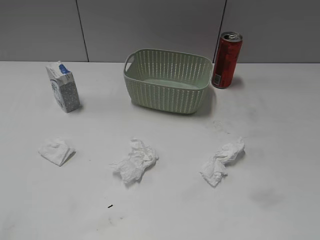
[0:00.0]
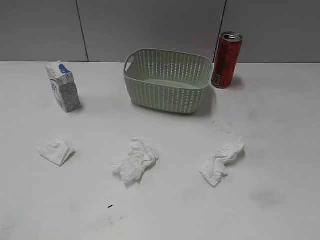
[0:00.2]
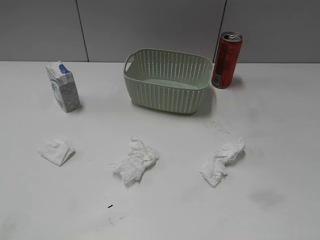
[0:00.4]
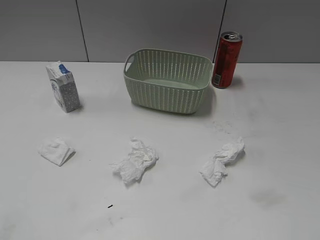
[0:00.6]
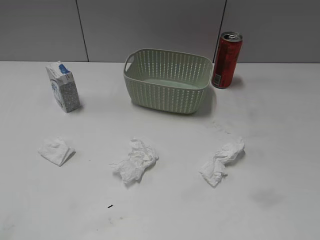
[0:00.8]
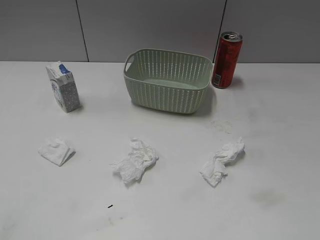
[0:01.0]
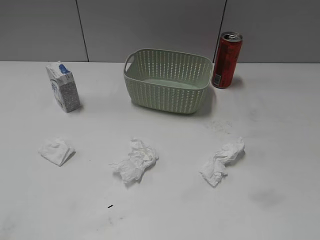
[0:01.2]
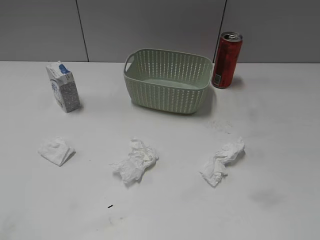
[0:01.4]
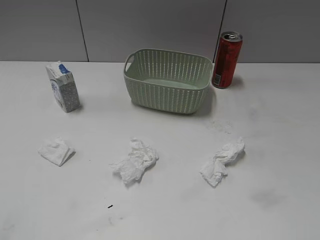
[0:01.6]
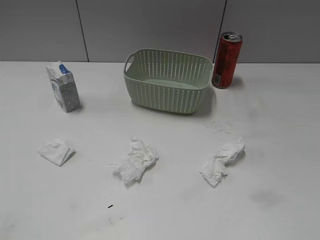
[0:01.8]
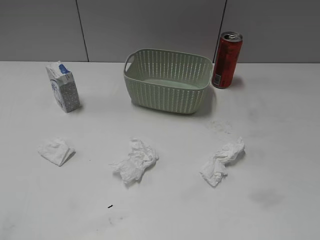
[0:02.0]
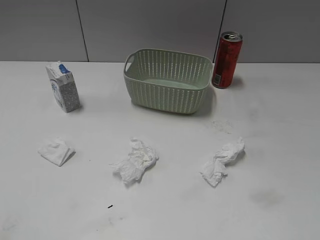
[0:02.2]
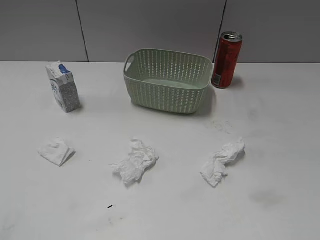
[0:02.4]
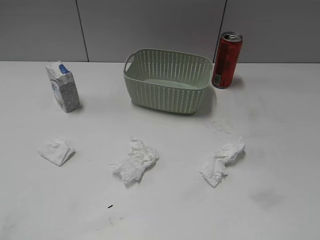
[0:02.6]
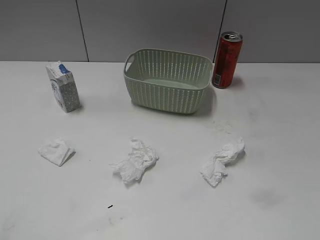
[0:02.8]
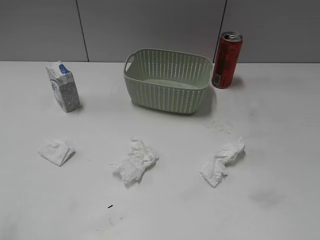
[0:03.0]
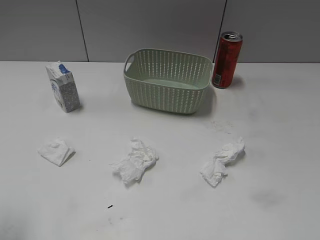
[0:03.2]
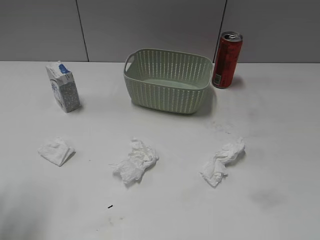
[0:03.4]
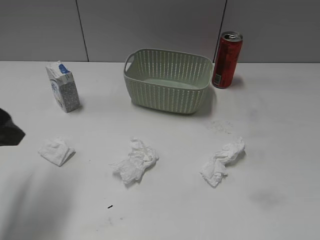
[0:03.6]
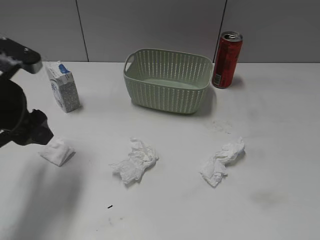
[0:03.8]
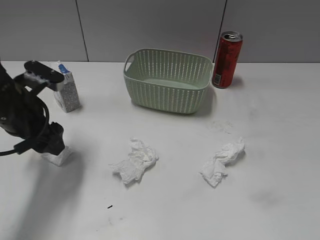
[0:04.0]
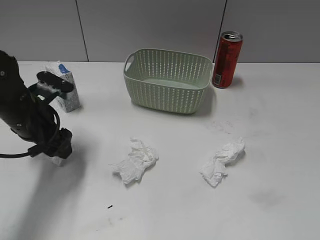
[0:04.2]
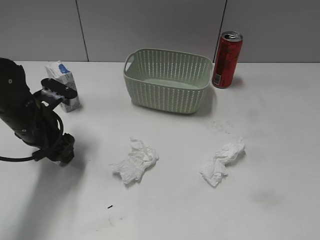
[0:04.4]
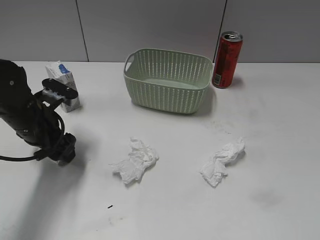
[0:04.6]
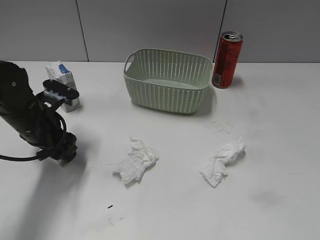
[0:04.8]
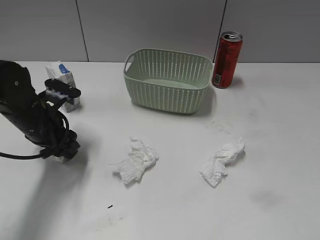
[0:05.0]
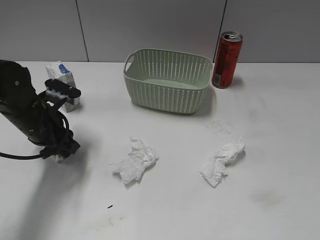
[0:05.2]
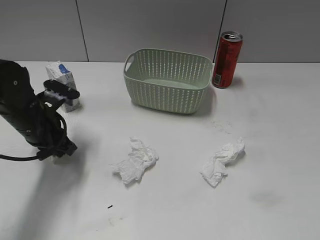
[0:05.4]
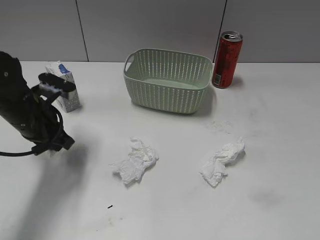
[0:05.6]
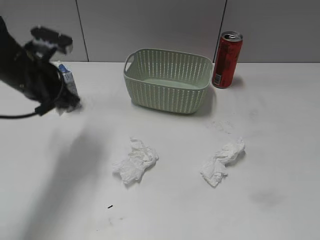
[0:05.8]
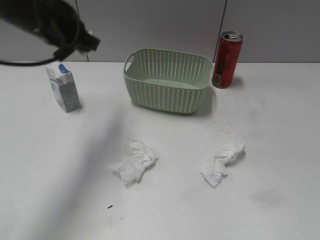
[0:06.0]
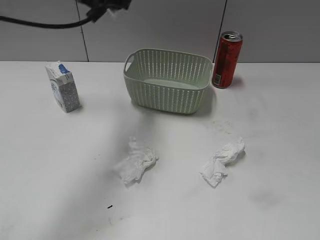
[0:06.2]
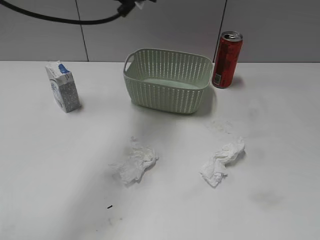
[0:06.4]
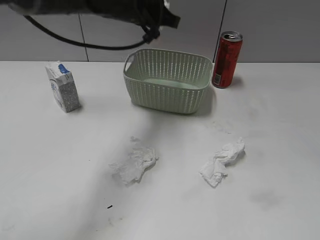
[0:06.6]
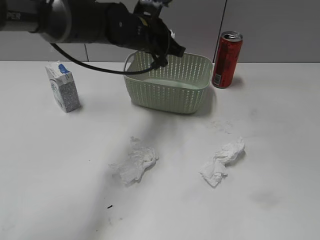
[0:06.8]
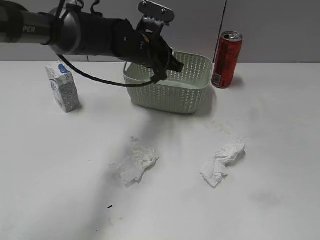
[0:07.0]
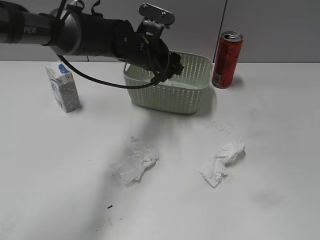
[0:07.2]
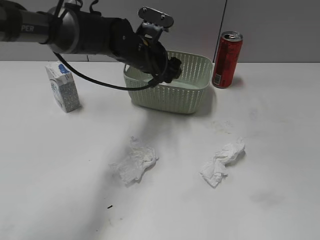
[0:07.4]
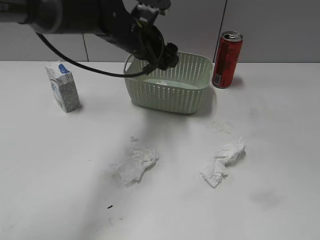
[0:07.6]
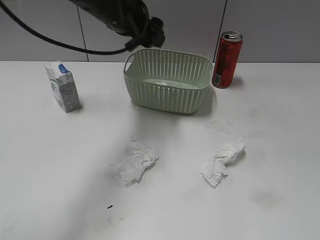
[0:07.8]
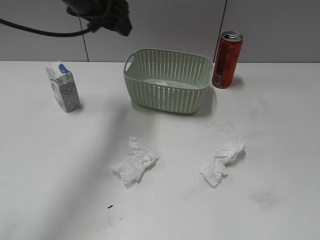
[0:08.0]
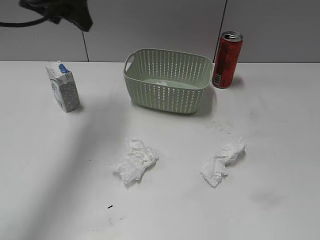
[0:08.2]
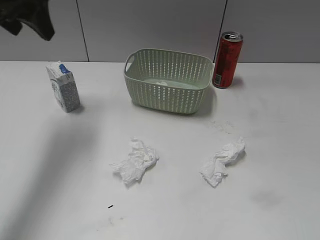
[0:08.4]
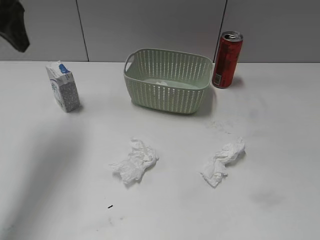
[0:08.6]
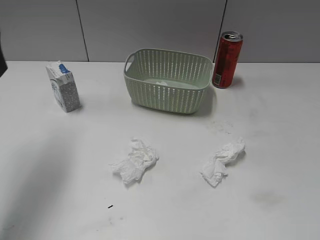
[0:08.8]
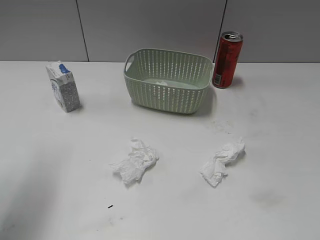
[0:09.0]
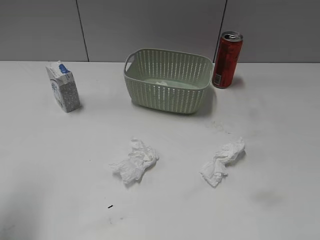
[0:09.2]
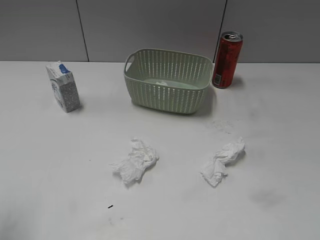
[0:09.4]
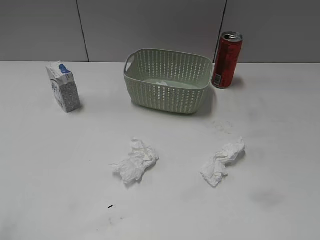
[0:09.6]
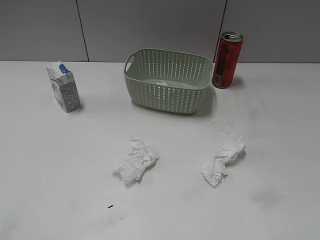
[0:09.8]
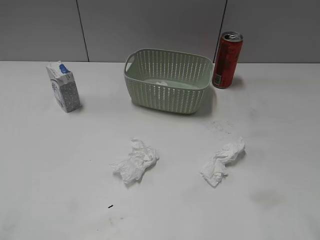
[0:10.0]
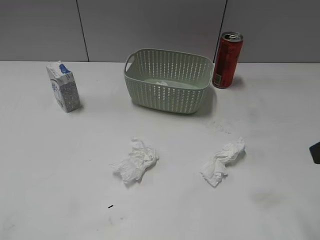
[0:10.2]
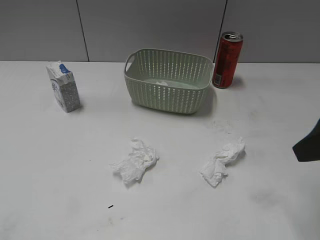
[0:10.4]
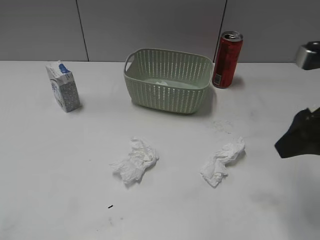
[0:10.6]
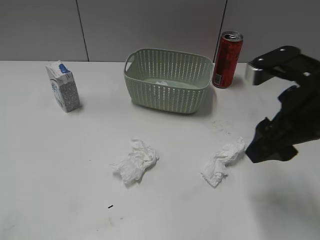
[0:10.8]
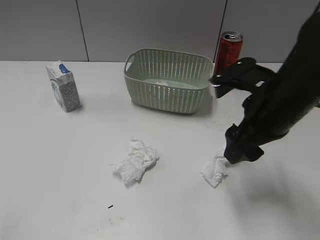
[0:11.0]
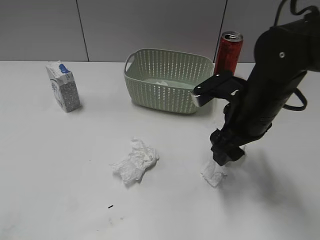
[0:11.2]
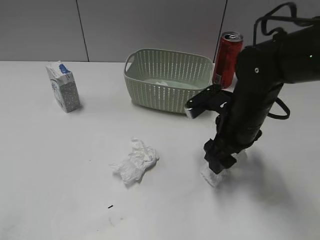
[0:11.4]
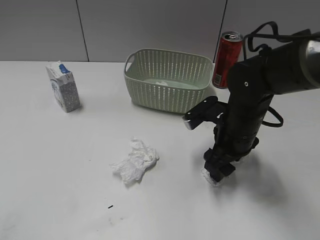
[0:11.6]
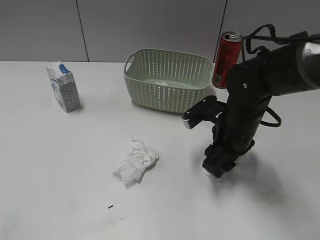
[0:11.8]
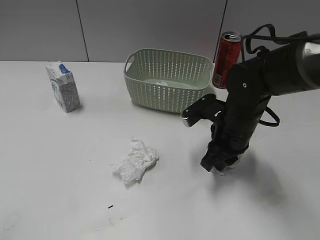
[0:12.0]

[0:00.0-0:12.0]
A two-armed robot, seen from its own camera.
Step, 0:03.2 to 0:05.4: Grasp the waste paper with left gripper.
Step, 0:05.6 to 0:07.2: Place the waste paper in the basket with left gripper.
0:03.0 to 0:04.4: The left gripper goes approximately 30 cm forward, downward and to the right.
0:04.4 to 0:06.0: The left gripper is displaced upward by roughly 15 cm, and closes.
0:06.0 to 0:07.6: The left gripper moves up and down over some 15 cm, changing direction 2 times, and opens up.
0:07.6 to 0:09.0: The left gripper travels to the left and backward by approximately 30 cm.
0:09.0 to 0:10.4: The left gripper is displaced backward by some 25 cm. The right gripper is displaced forward by some 20 cm.
0:10.4 to 0:12.0: The right gripper shifts about 20 cm downward, to the left and forward, and closes.

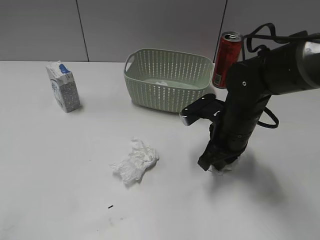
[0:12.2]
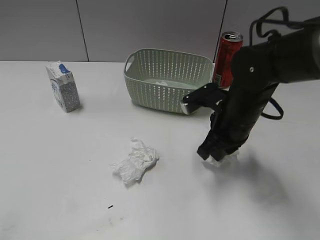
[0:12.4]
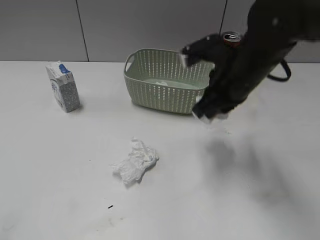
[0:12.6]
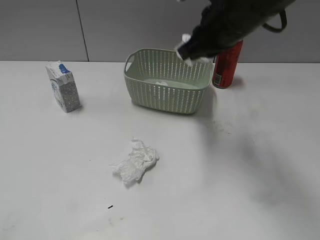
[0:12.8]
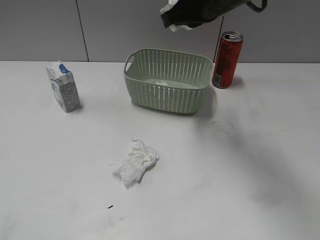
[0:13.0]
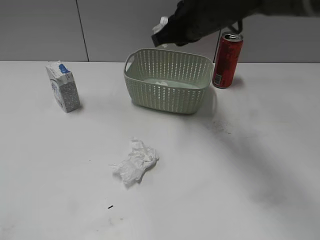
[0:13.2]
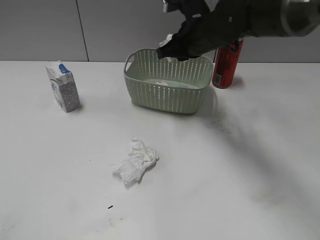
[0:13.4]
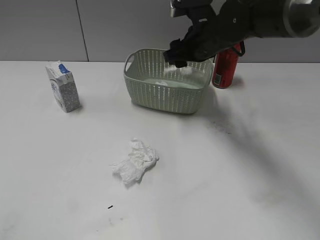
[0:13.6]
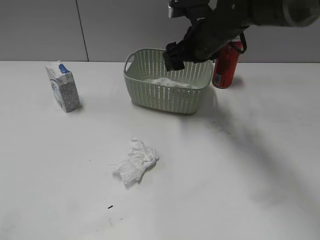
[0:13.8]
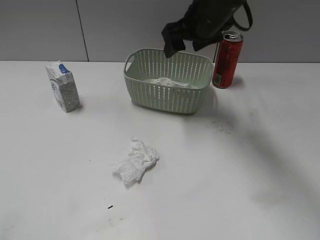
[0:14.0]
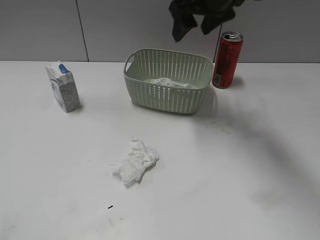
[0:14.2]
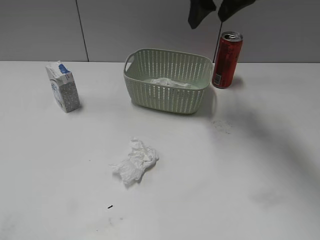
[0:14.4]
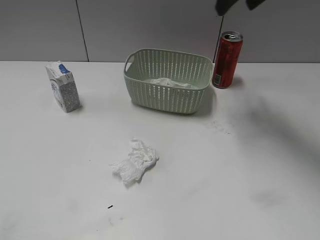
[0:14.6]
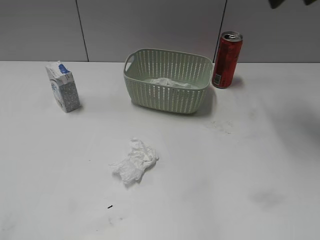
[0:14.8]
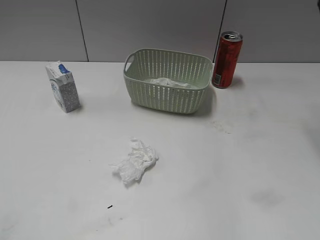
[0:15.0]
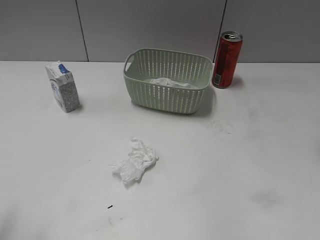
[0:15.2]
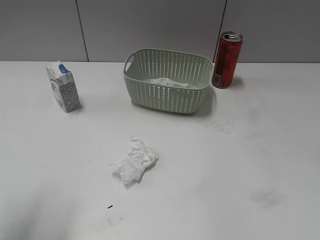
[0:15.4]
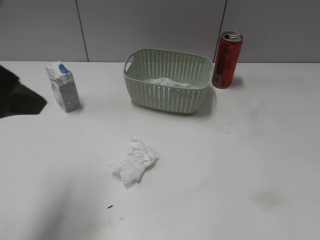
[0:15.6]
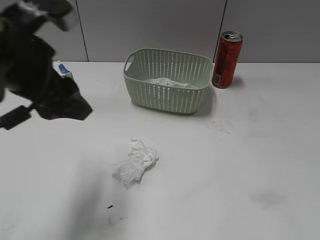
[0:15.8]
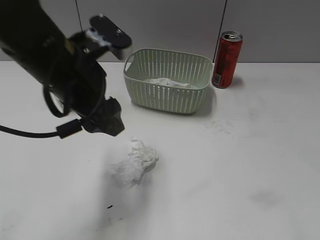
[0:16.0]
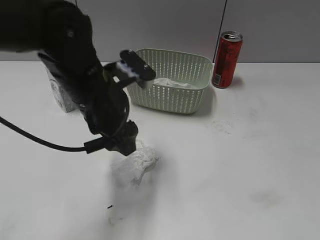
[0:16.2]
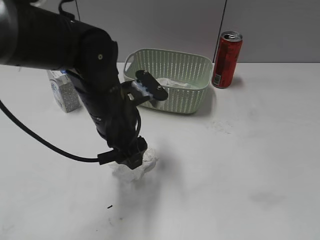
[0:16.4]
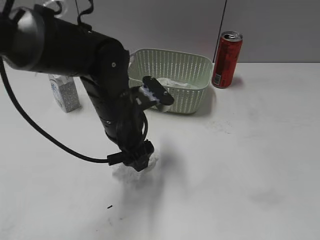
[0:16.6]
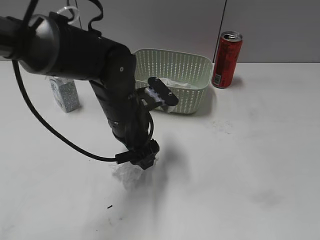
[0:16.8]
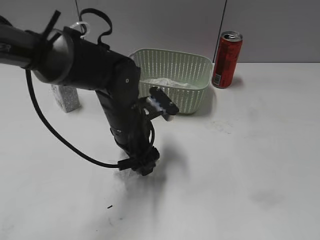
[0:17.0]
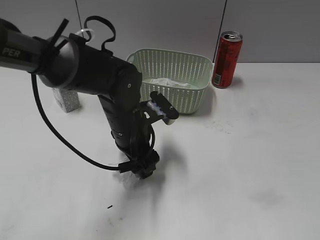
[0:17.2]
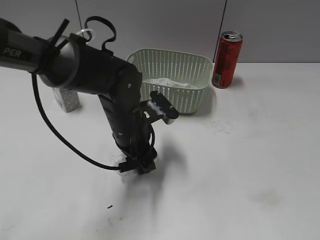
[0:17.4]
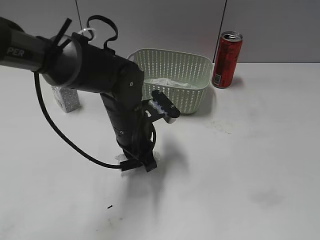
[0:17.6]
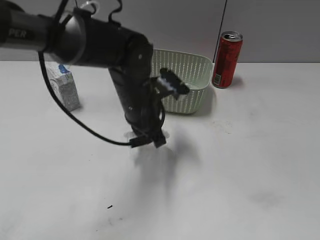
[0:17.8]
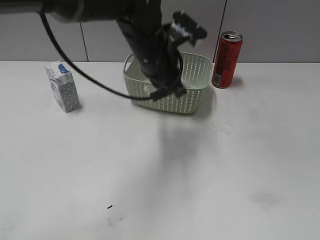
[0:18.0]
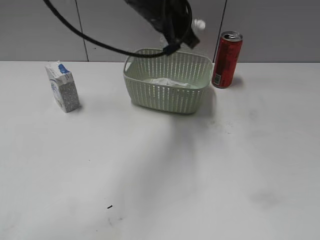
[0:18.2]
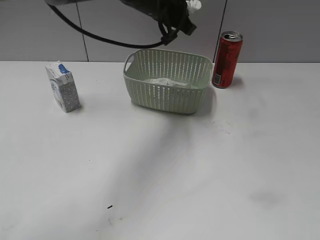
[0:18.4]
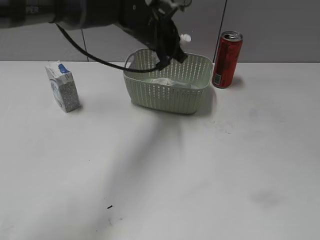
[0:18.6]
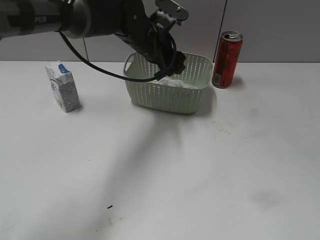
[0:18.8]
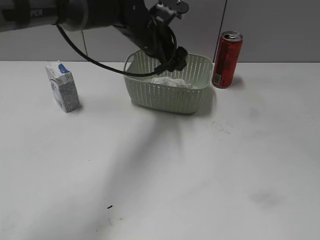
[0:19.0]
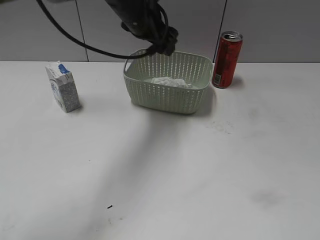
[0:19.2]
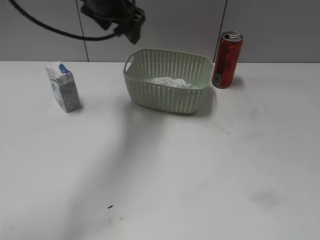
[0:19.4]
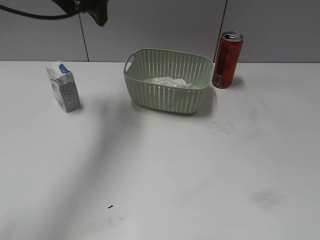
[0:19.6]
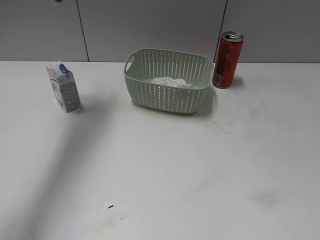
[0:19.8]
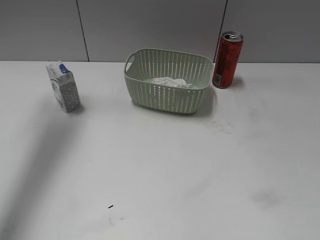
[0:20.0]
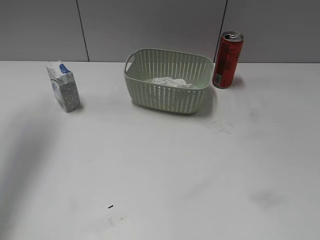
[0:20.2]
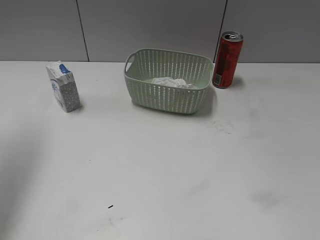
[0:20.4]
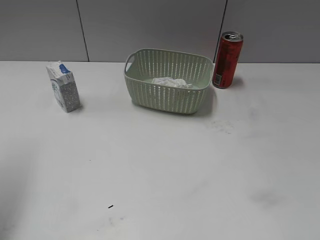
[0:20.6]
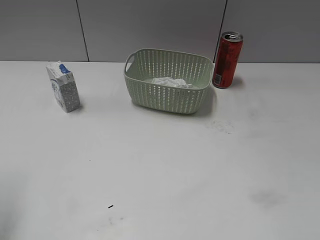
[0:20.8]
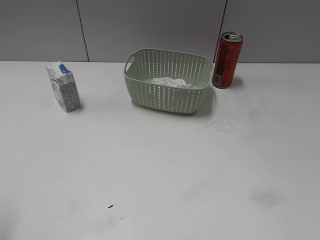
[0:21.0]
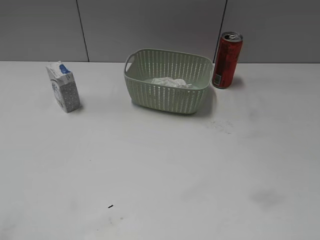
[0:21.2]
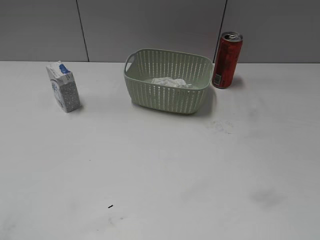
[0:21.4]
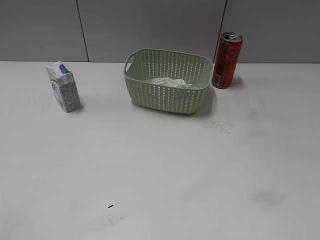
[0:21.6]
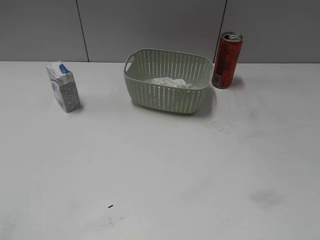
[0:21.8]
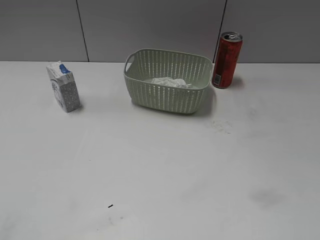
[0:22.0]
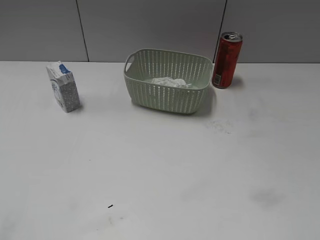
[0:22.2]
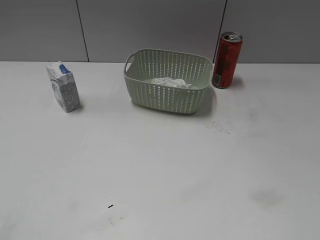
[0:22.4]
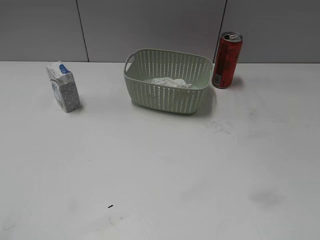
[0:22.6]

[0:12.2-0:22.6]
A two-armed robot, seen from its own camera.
Step, 0:12.6 to 0:13.8: Place the waste paper in the basket with right gripper.
Step, 0:14.0 to 0:17.8: Grasp the waste paper with left gripper.
Step, 0:18.0 to 0:18.8: Place the waste paper in the basket with left gripper.
0:12.2 to 0:13.6: The right gripper moves forward and upward, approximately 15 cm, and opens up.
0:13.6 to 0:15.2: The right gripper is displaced to the right, upward and backward by some 30 cm. Meanwhile the left gripper travels forward by about 10 cm.
0:15.2 to 0:16.6: The right gripper moves backward, some 30 cm. The left gripper is displaced to the right, forward and downward by some 35 cm.
0:16.6 to 0:18.2: The left gripper goes about 20 cm upward, forward and to the right, and closes its fingers.
0:18.2 to 0:19.6: The left gripper shifts some 15 cm to the left and upward, and opens its fingers.
0:19.6 to 0:21.2: The left gripper moves backward and to the left, roughly 40 cm.
